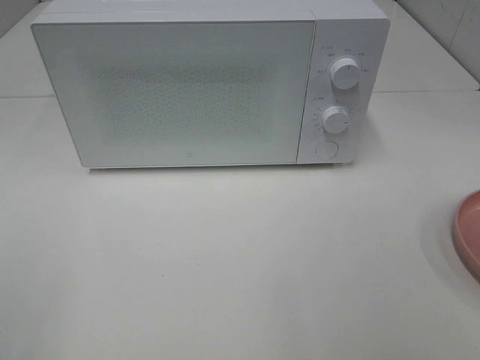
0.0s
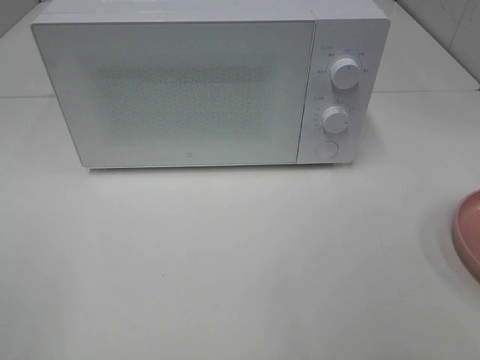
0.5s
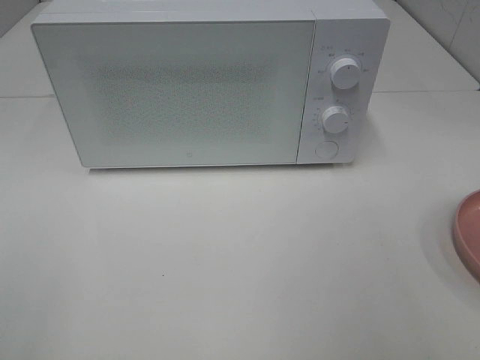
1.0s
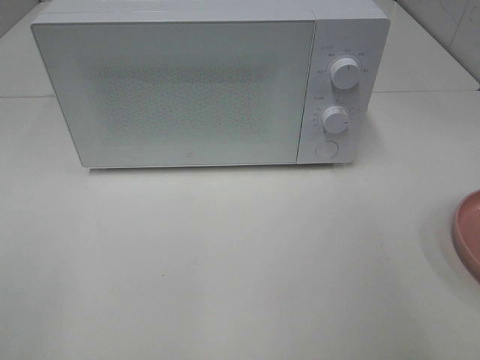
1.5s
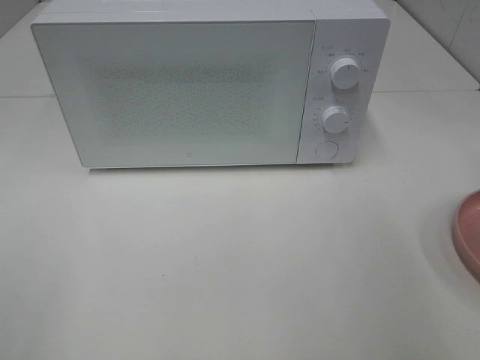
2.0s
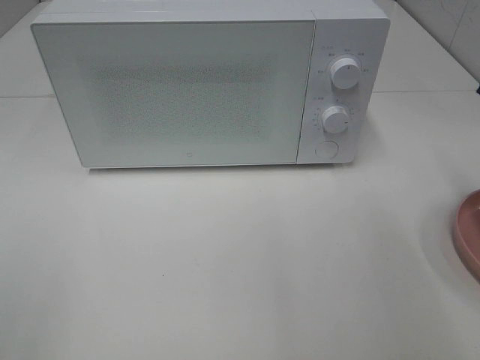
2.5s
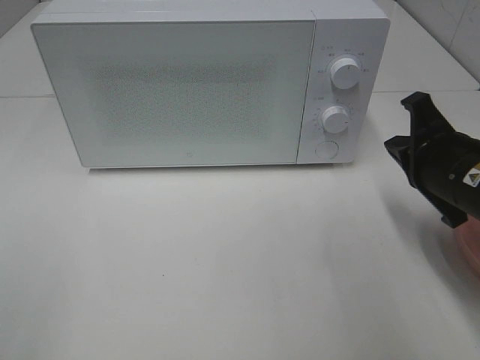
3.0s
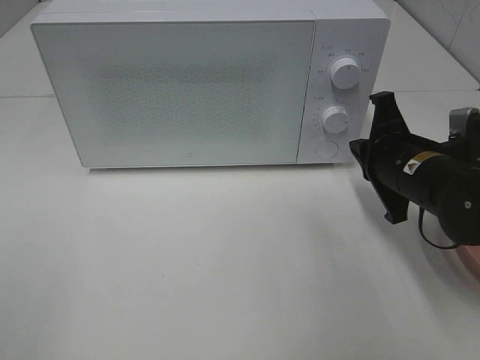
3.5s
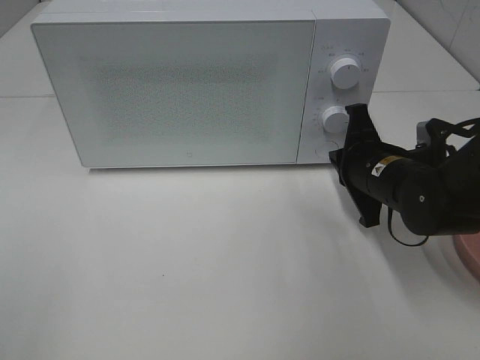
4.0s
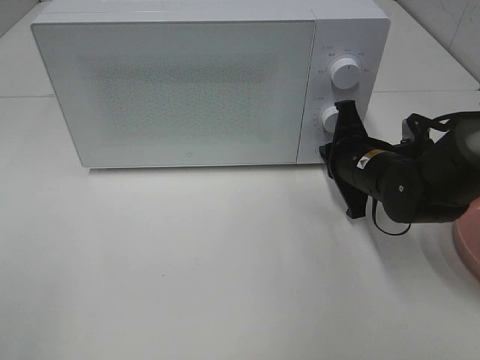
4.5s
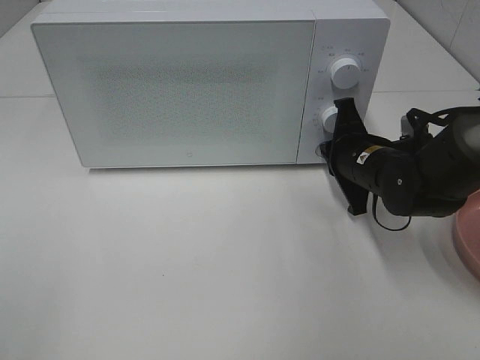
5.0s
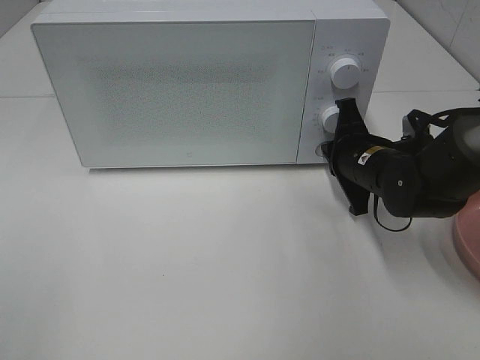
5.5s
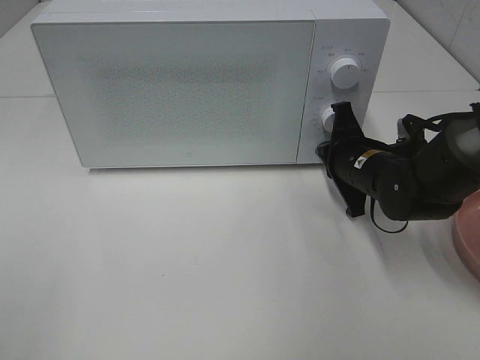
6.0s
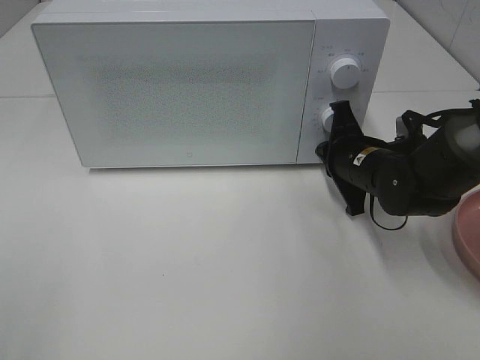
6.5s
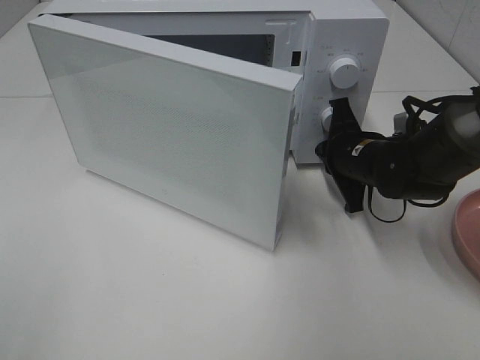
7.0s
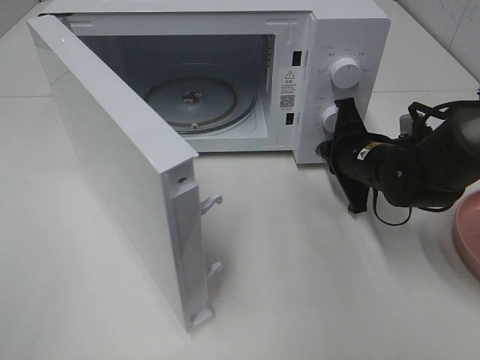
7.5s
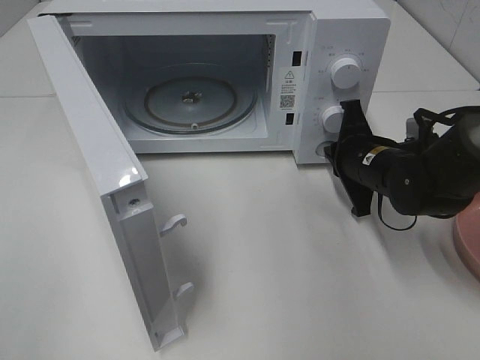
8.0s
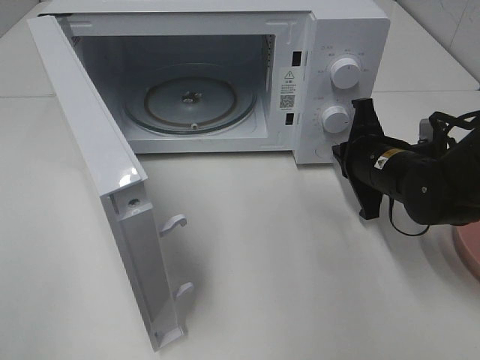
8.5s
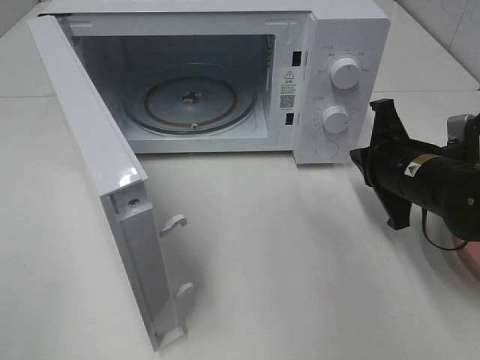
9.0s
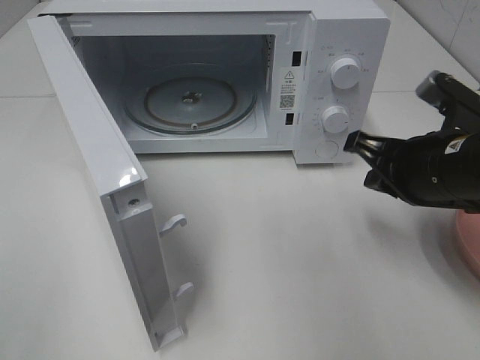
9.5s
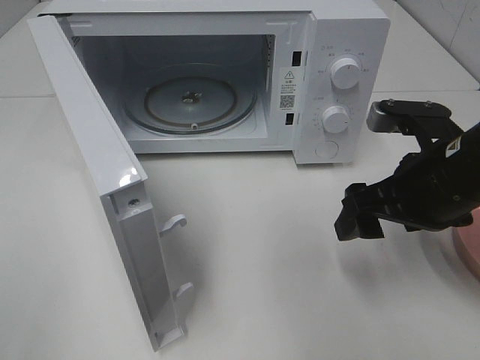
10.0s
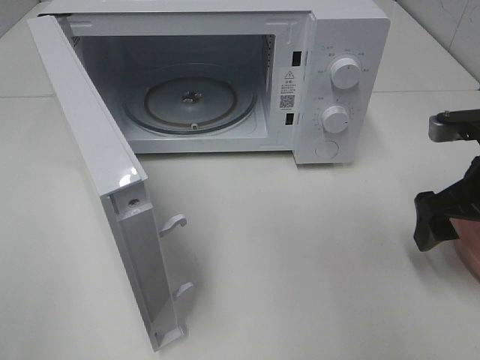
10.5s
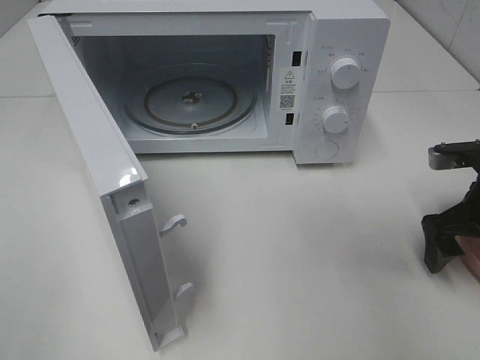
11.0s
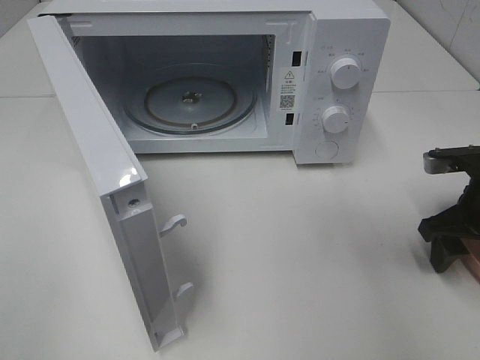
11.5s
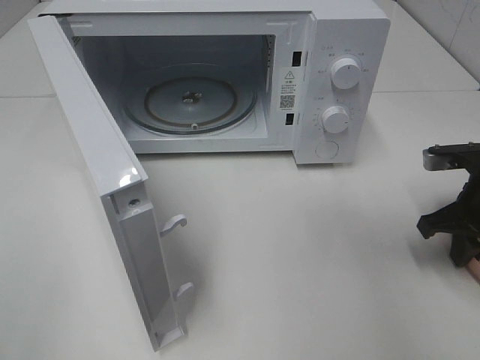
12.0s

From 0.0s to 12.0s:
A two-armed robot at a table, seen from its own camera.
Task of the whole recording: Heat the burger.
Step, from 0.0s to 8.0s: Right hand: press the switch.
Step, from 8.5s to 12.0s: Right hand: grab the plate with the hamburger.
From 2.0s to 4.0s: The right gripper heads downward, to the left and forward, covering some 25 cm.
From 4.0s to 6.0s: The grippers move only a little.
From 8.0s to 10.0s: The right gripper is displaced backward and upward by about 15 cm, and opens its fingers.
From 10.0s to 12.0s: The right gripper goes approximately 15 cm to the right, downward and forward, and closes up.

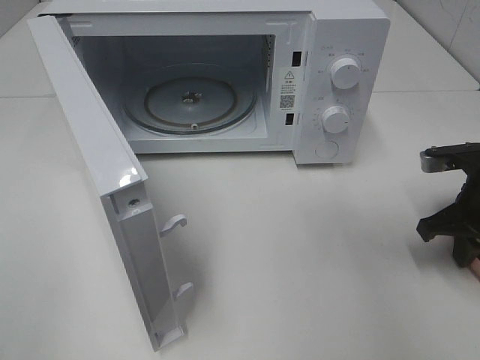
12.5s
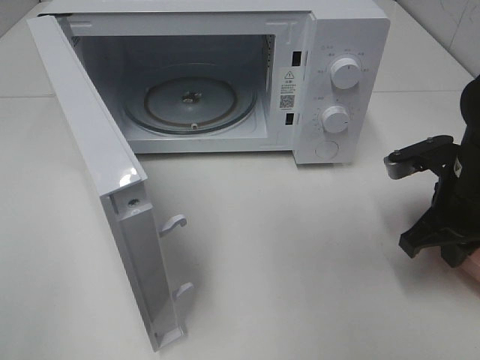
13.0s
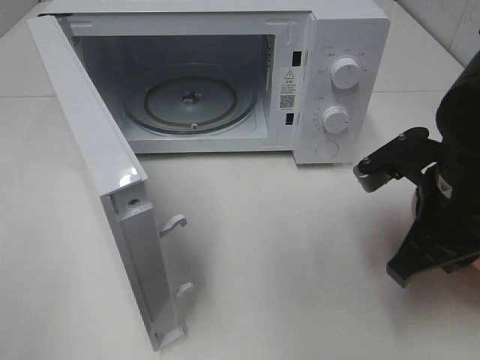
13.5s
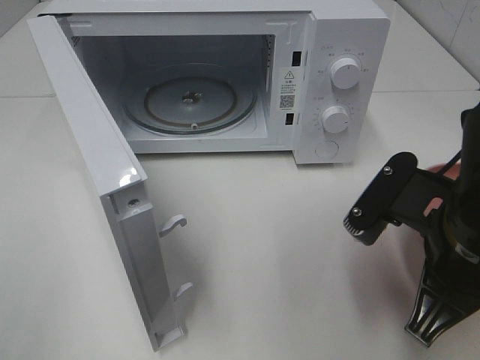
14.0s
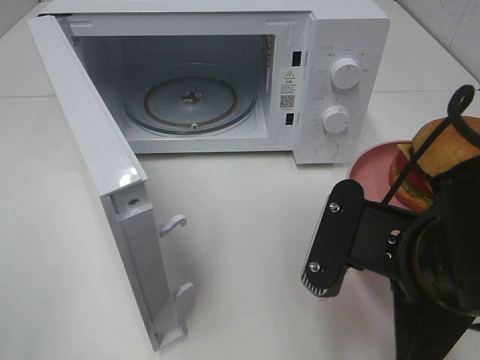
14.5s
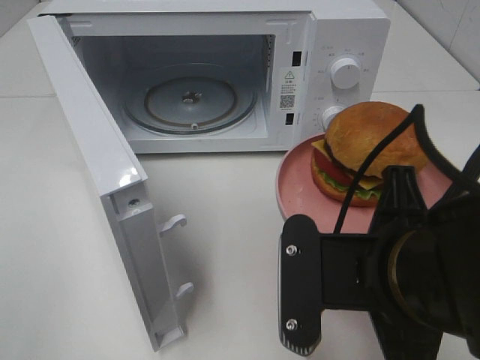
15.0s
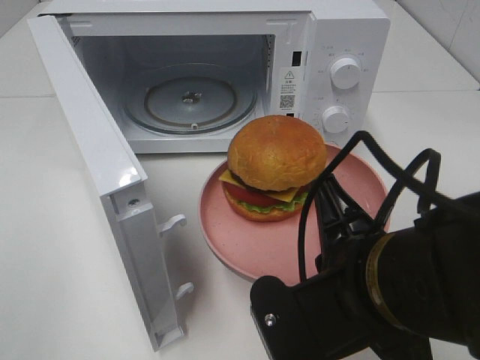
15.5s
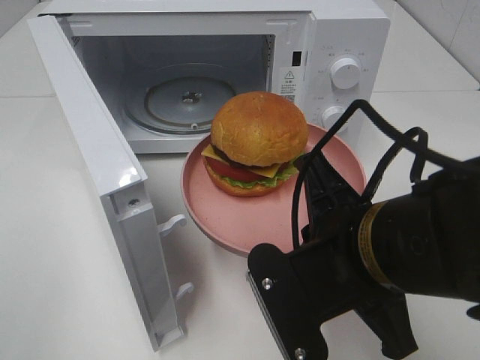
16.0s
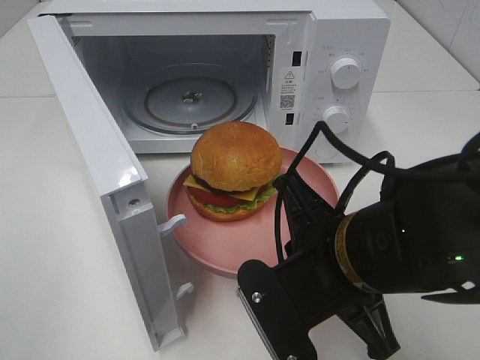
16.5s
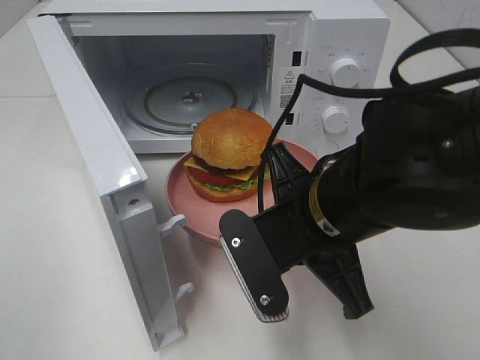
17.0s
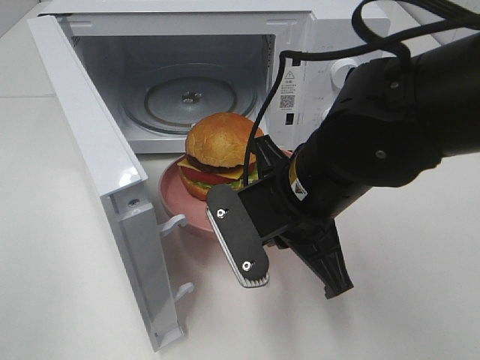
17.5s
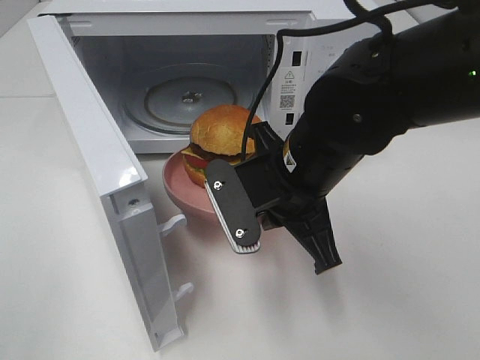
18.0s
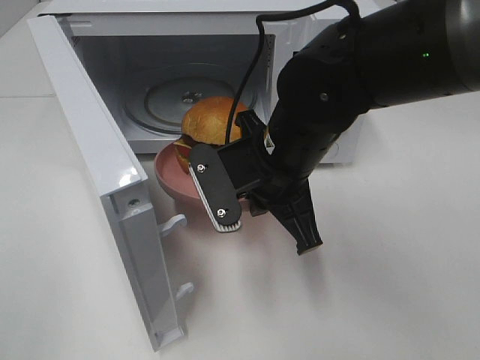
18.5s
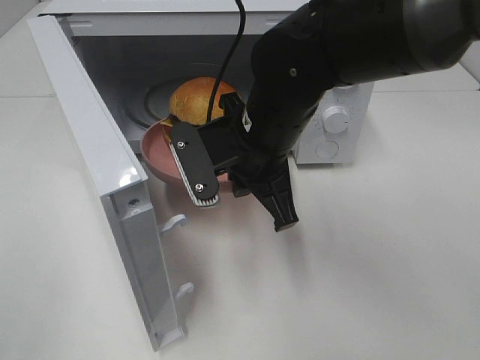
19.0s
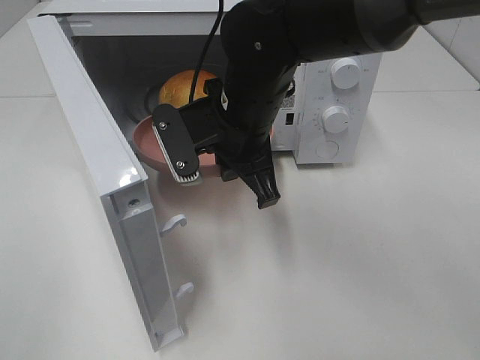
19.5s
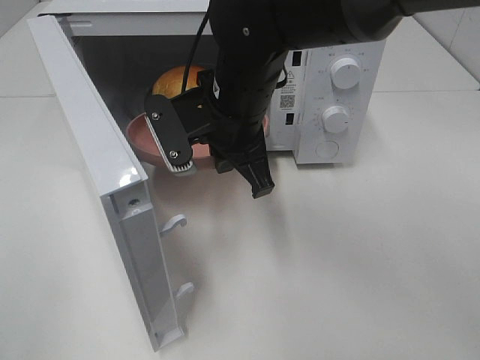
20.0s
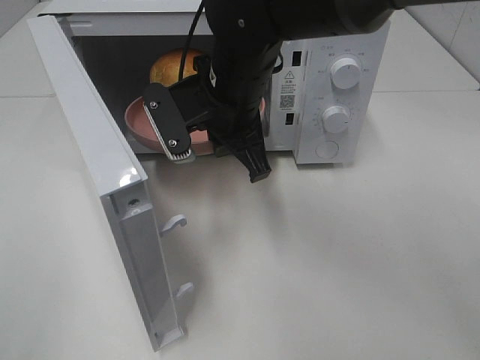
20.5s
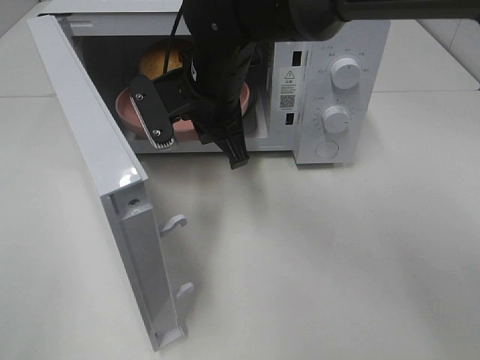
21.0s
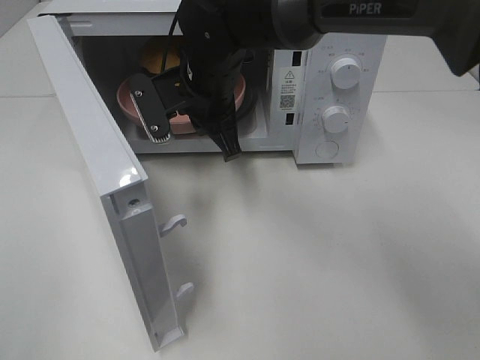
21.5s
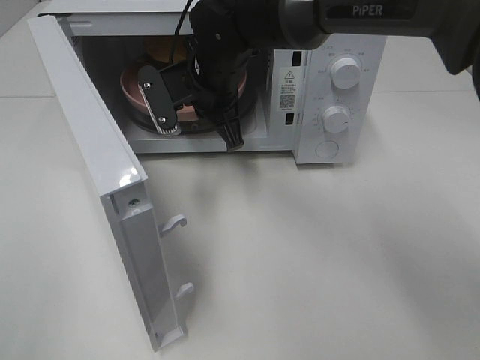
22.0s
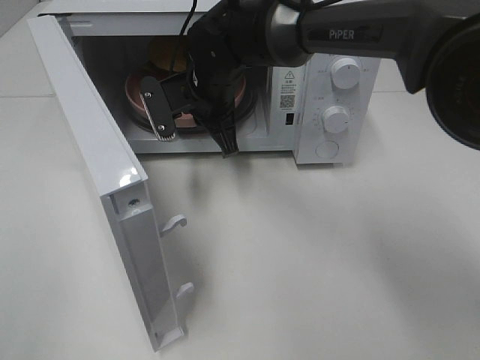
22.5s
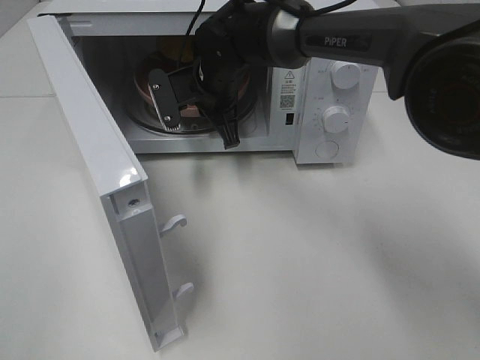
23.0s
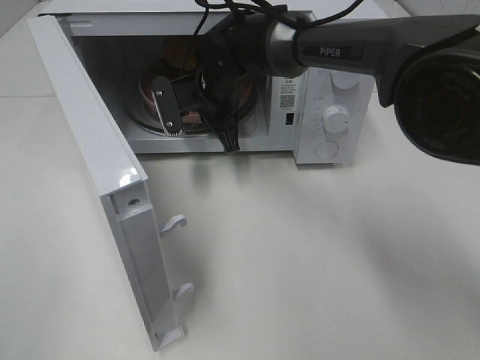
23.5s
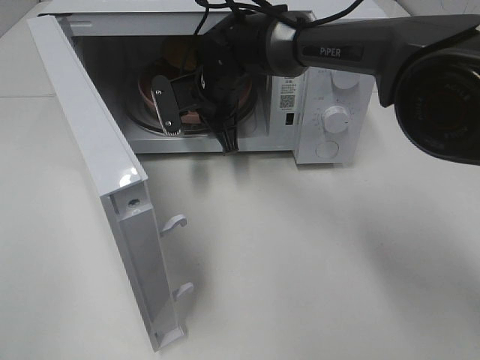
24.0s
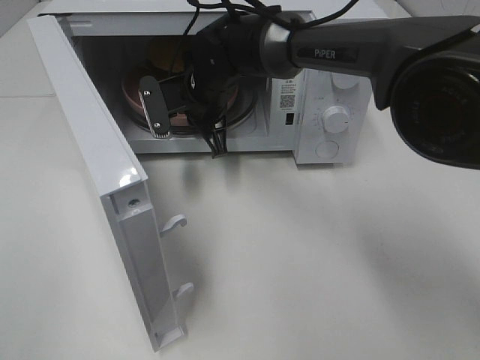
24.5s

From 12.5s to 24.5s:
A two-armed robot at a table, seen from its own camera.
Task of the whole recording: Heat the burger.
From 12.5s to 14.5s: The right gripper travels backward, to the left and upward by about 25 cm.
From 14.5s to 16.5s: The right gripper changes place by about 5 cm.
From 16.5s to 18.5s: The right gripper goes approximately 10 cm forward.
From 18.5s to 20.5s: The right gripper heads forward and to the left, covering some 10 cm.
From 20.5s to 22.5s: The right gripper shifts roughly 10 cm forward.
From 22.5s to 24.5s: The grippers stay close to where they were, moving slightly.

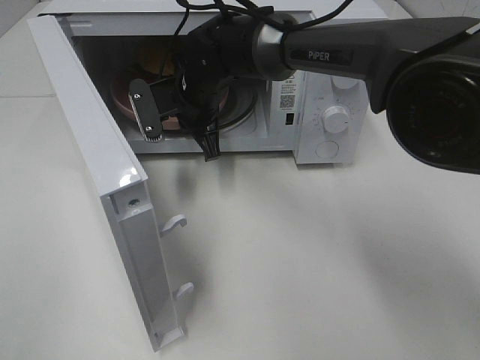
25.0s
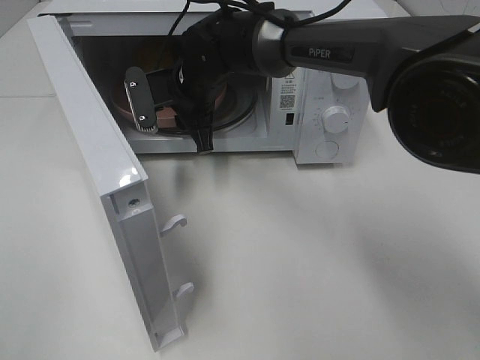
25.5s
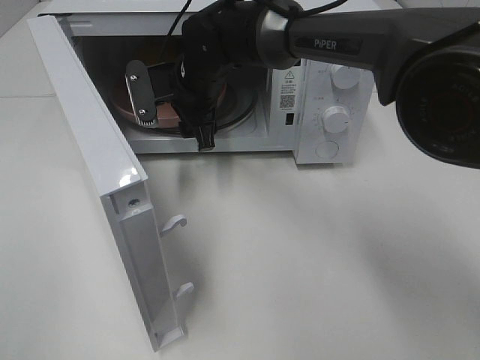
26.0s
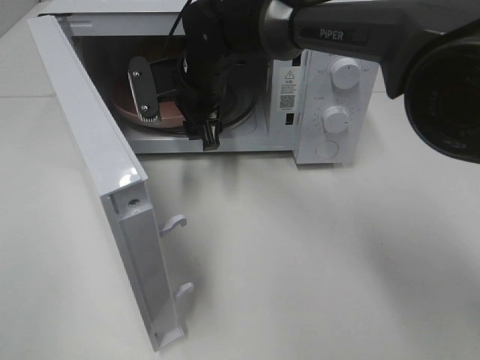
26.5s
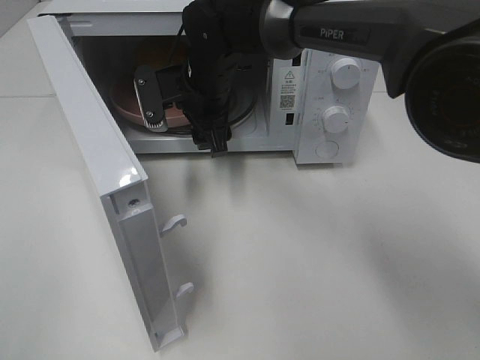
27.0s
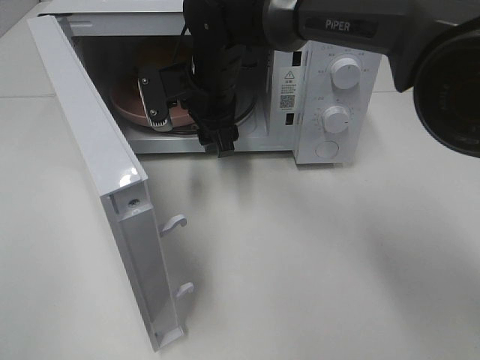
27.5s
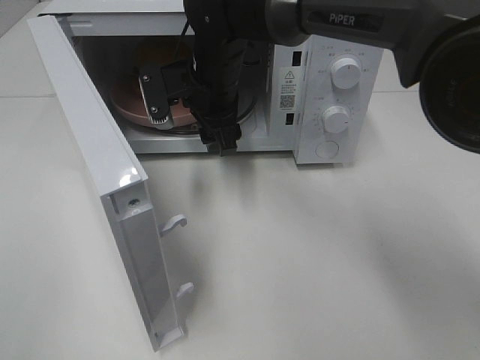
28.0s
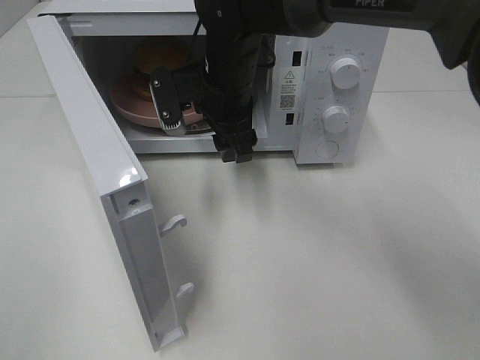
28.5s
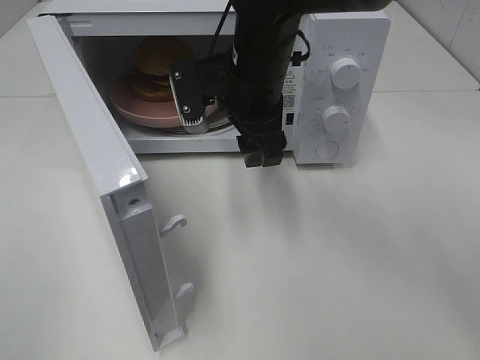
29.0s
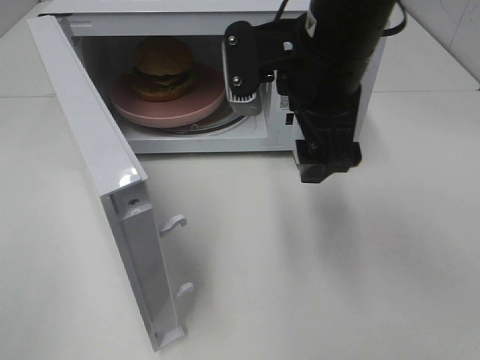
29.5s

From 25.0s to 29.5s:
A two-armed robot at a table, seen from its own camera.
Task of the whole recording: Heat the burger.
From 25.0s to 27.0s: The right gripper opens up.
From 27.0s to 29.5s: The right gripper is displaced backward, to the right and upward by approximately 20 cm.
